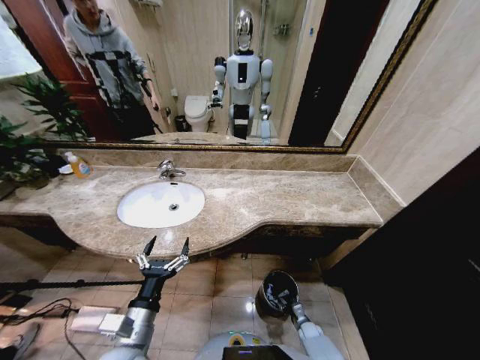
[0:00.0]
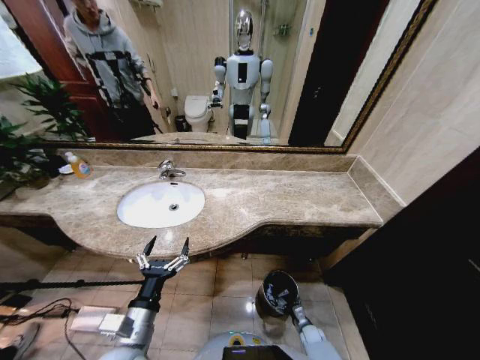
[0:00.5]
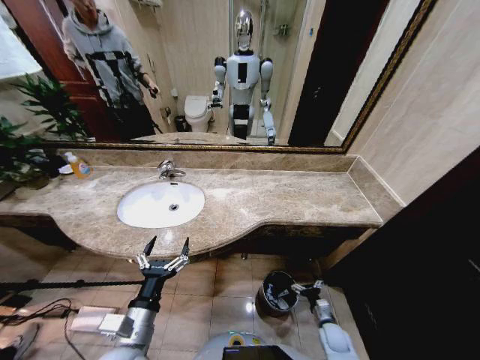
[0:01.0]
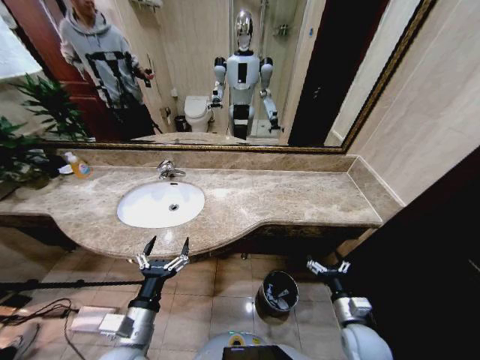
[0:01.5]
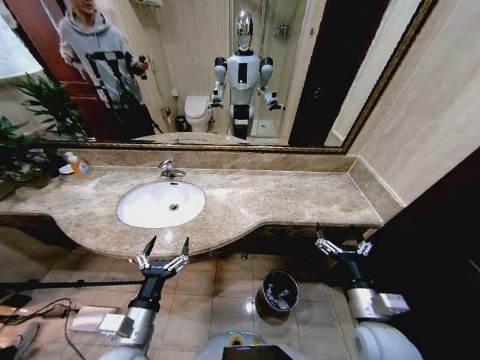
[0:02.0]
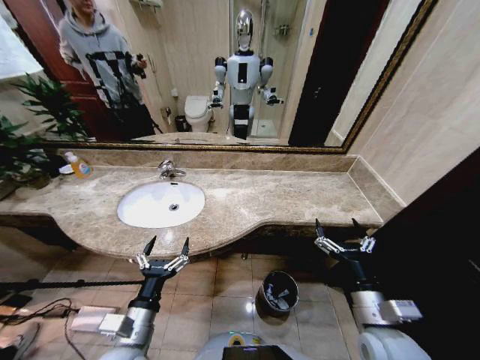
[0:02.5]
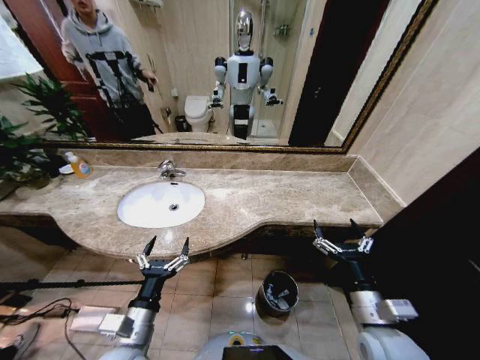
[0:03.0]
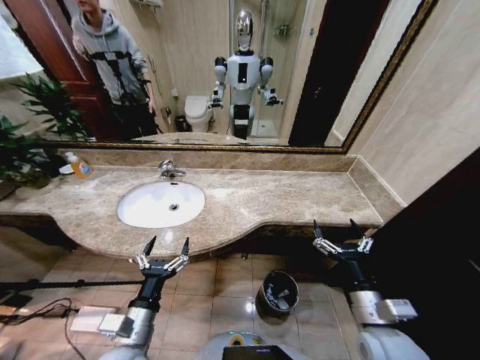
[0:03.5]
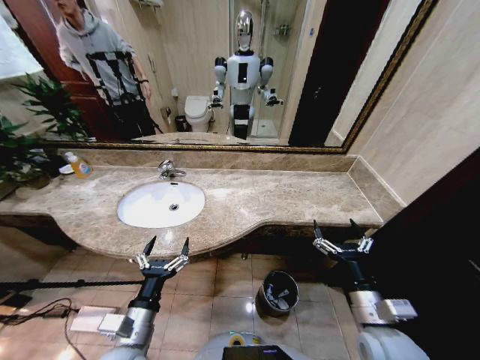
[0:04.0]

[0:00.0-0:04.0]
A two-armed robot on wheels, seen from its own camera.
Task of the whole recording: Pick up the trash from the sink and place it in the trash bin.
0:00.0 to 0:02.0: The right gripper moves upward, about 40 cm, and opens up.
0:02.0 to 0:04.0: There are only small adjustments of the grippers.

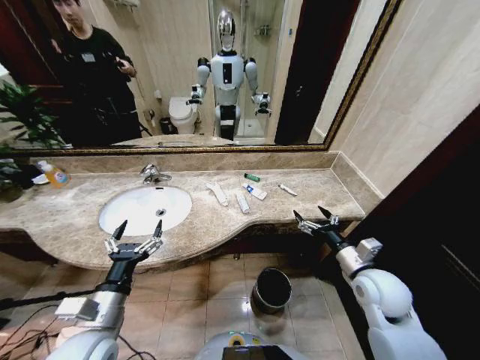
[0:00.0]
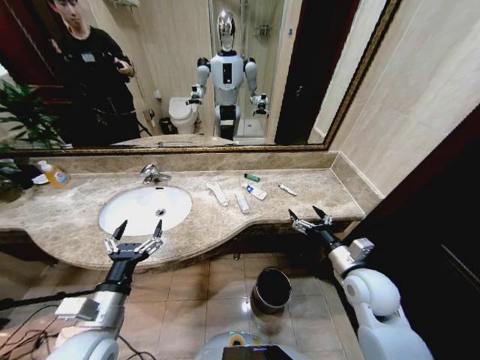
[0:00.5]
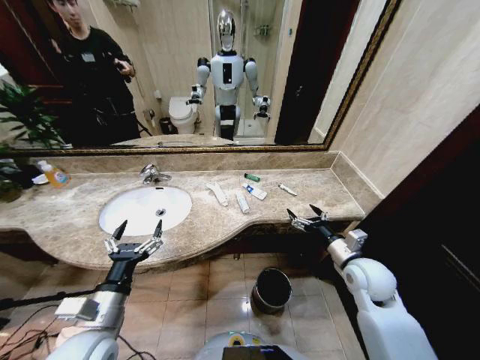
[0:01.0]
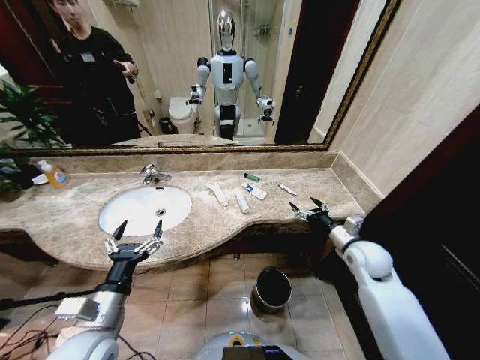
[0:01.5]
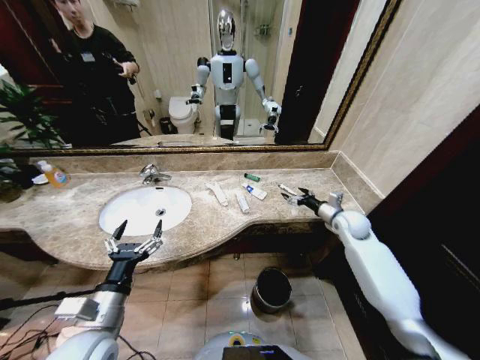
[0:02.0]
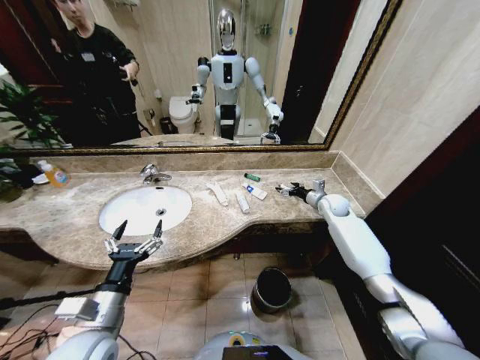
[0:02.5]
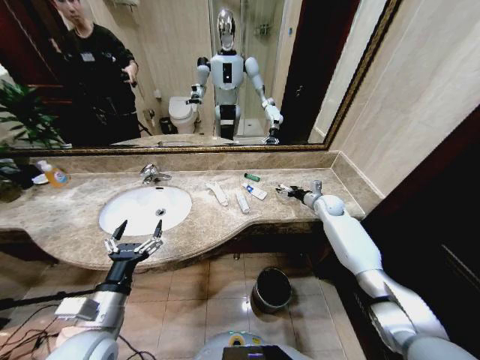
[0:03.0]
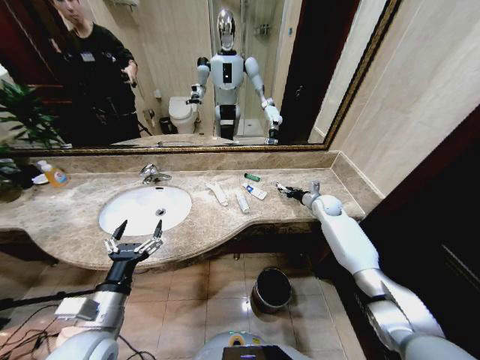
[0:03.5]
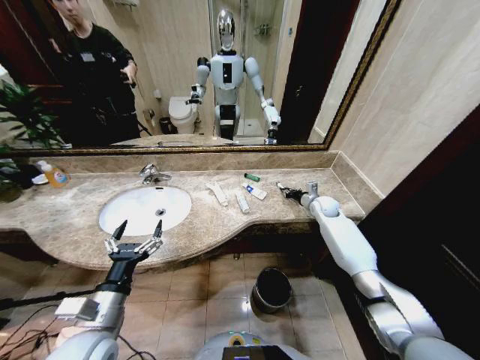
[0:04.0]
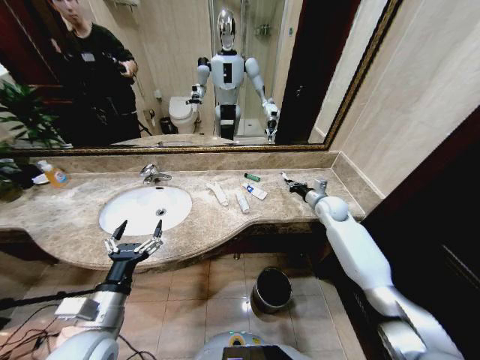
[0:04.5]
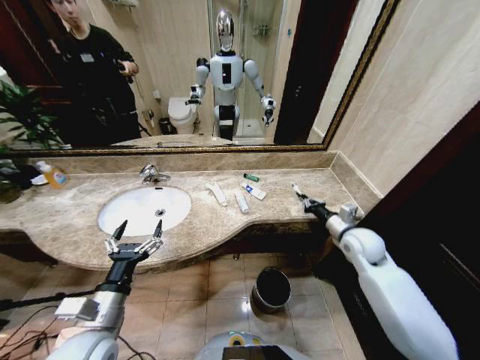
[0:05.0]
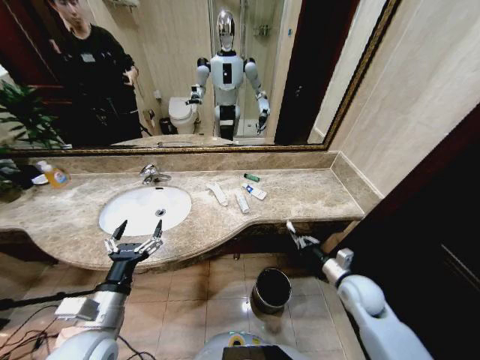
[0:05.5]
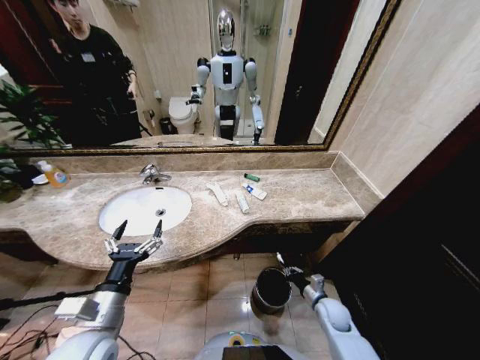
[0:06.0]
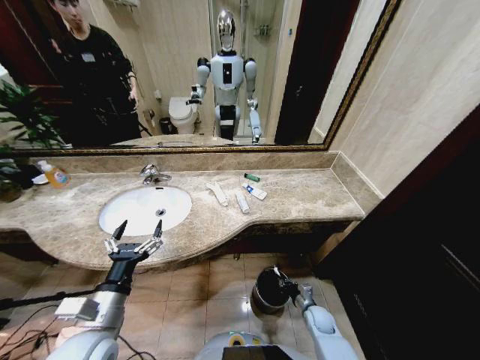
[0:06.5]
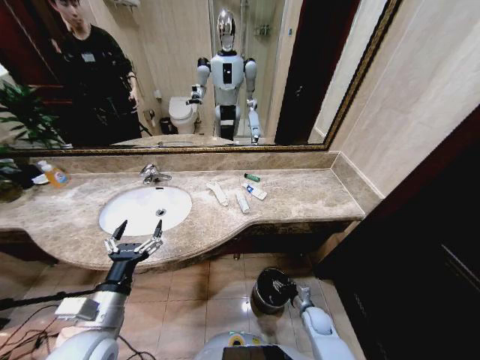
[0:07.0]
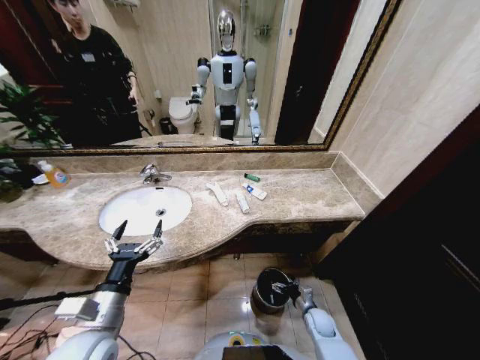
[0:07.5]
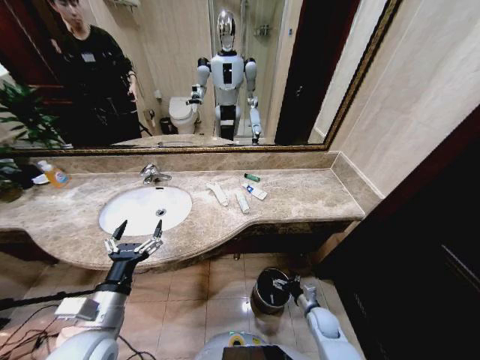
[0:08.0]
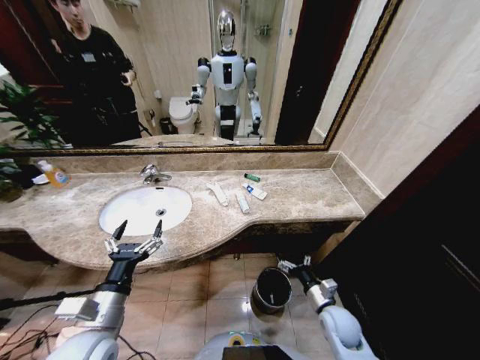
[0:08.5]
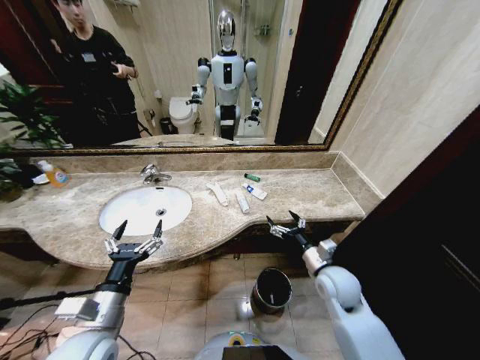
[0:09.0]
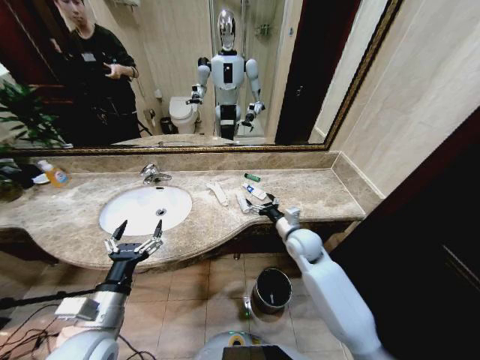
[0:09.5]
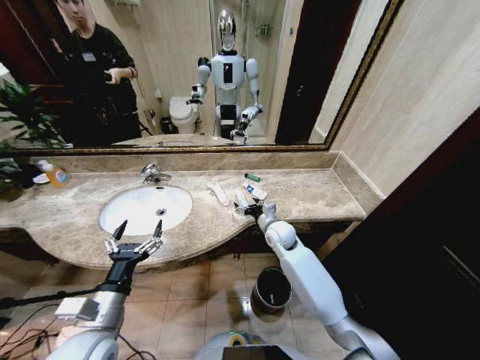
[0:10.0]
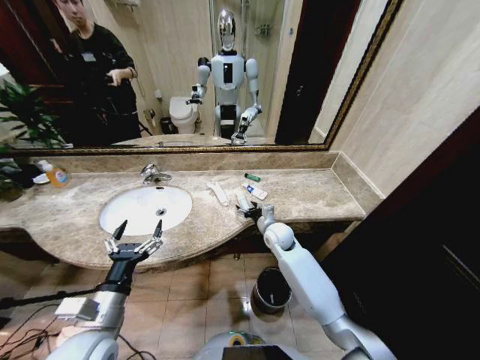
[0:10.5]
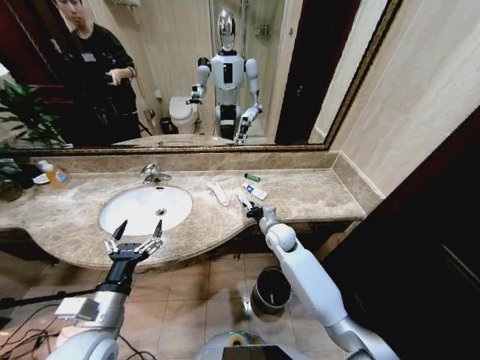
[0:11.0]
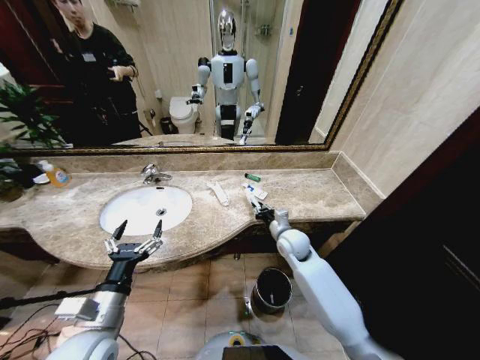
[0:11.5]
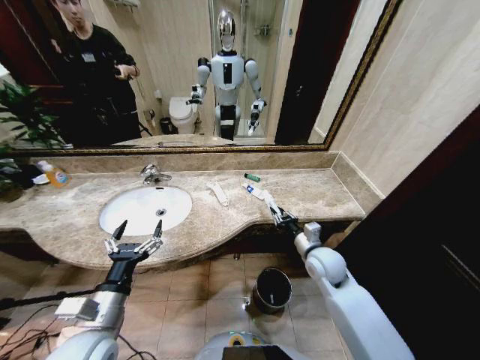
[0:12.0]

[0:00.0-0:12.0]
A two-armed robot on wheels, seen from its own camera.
Task of the whole recording: Pick up the trash from the sink and place it in the trash bin.
0:02.0 to 0:04.0: The right gripper is displaced forward by some 10 cm, and closes up.
0:04.0 to 0:06.0: The right gripper moves backward and downward, some 35 cm.
0:06.0 to 0:08.0: The right gripper opens its fingers.
0:08.0 to 0:10.0: The right gripper travels upward, forward and to the left by roughly 35 cm.
0:10.0 to 0:12.0: The right gripper goes about 15 cm backward and to the right, and closes up.

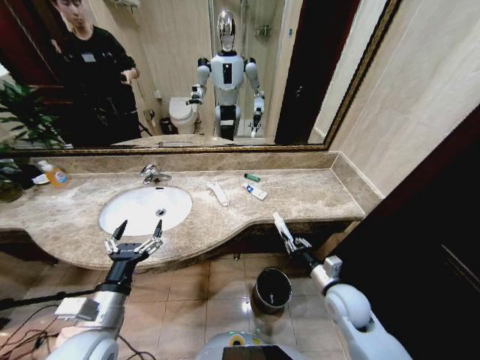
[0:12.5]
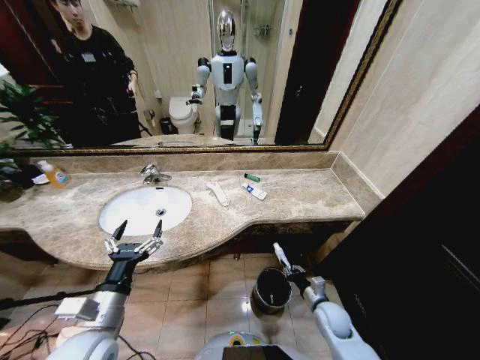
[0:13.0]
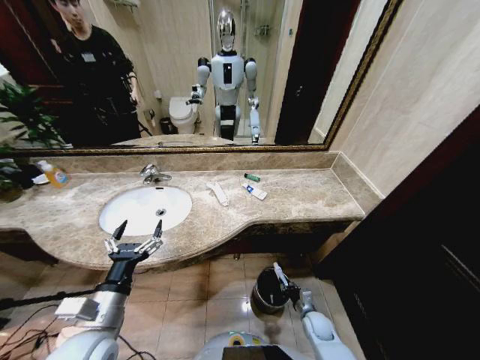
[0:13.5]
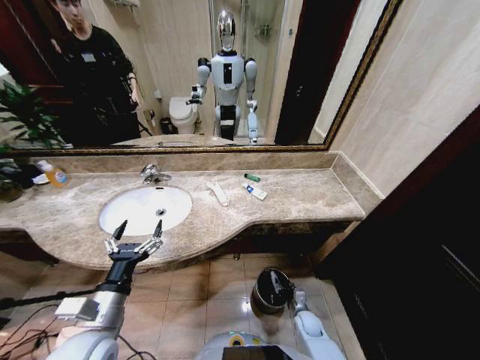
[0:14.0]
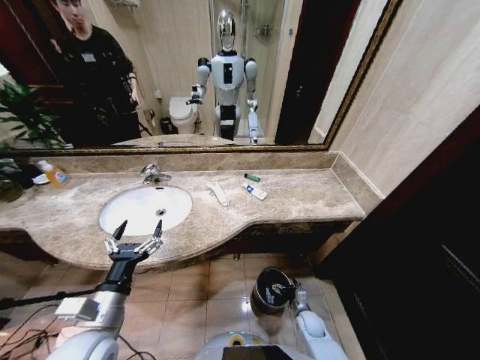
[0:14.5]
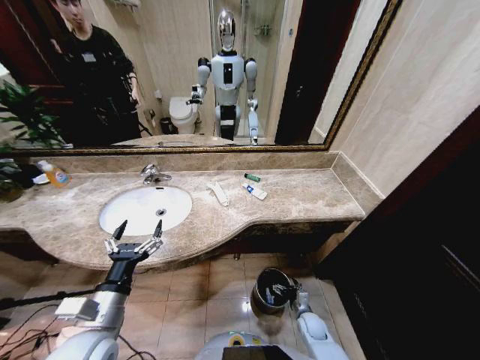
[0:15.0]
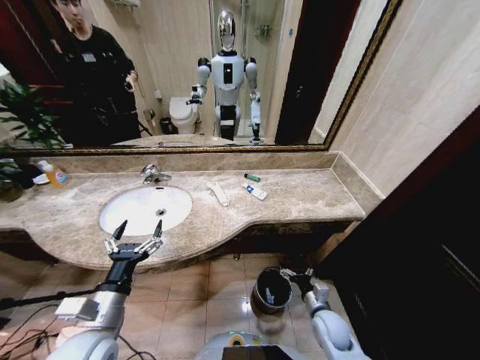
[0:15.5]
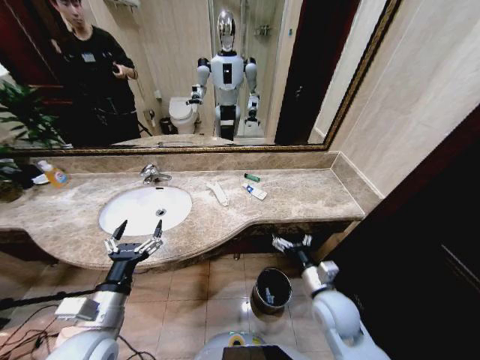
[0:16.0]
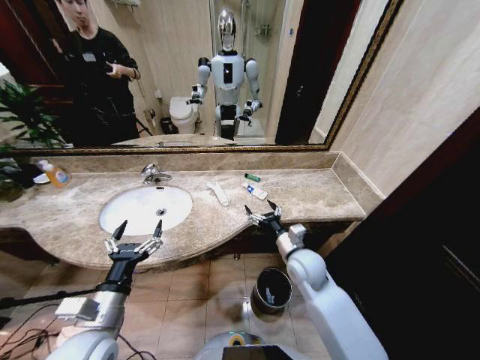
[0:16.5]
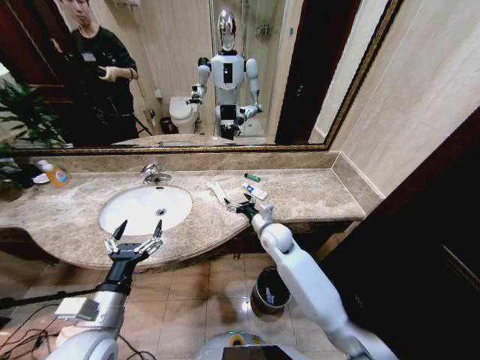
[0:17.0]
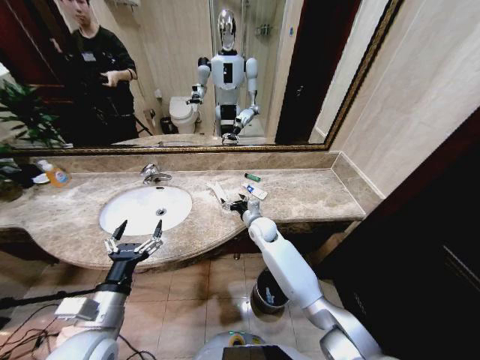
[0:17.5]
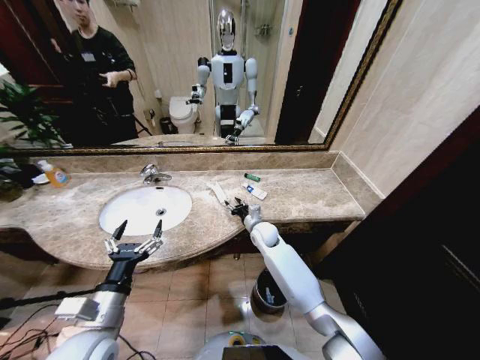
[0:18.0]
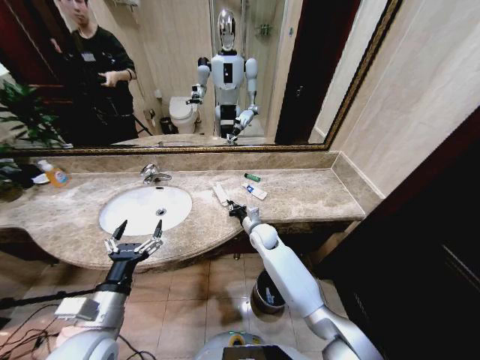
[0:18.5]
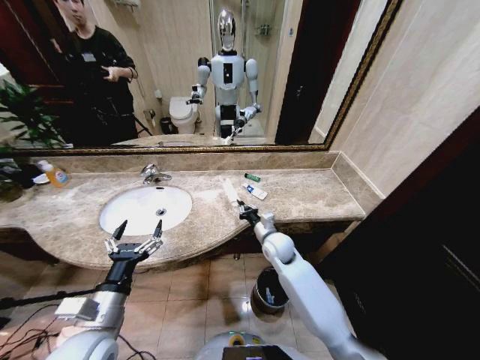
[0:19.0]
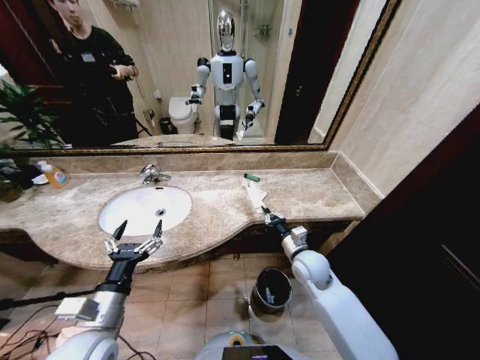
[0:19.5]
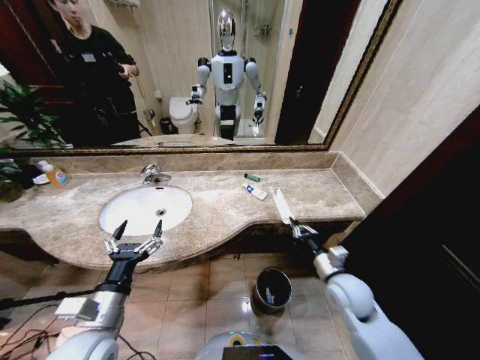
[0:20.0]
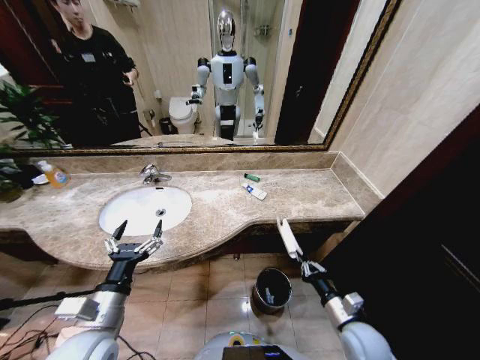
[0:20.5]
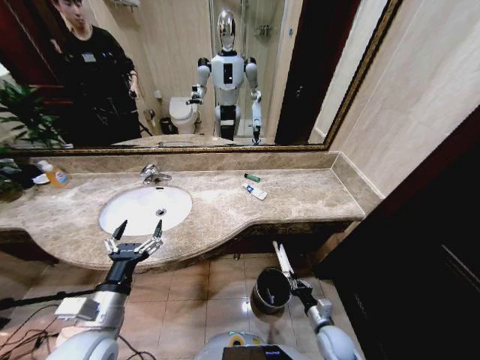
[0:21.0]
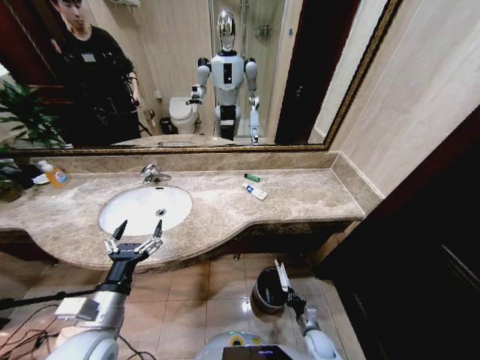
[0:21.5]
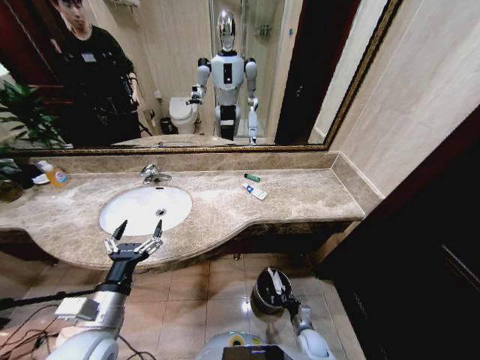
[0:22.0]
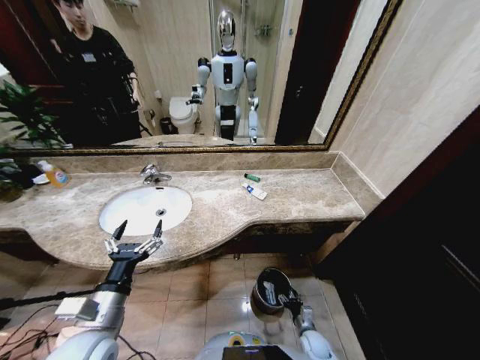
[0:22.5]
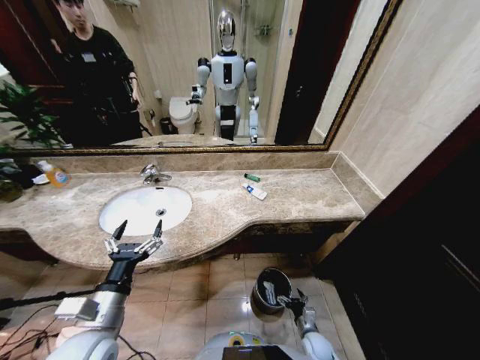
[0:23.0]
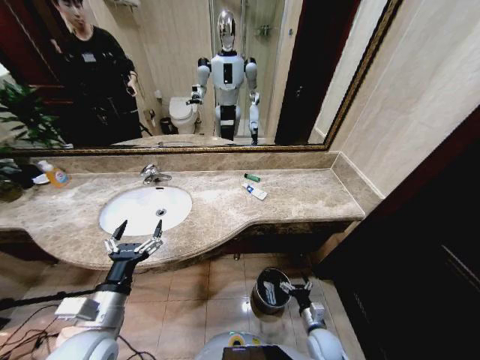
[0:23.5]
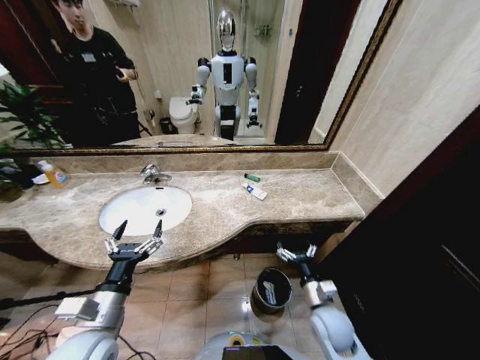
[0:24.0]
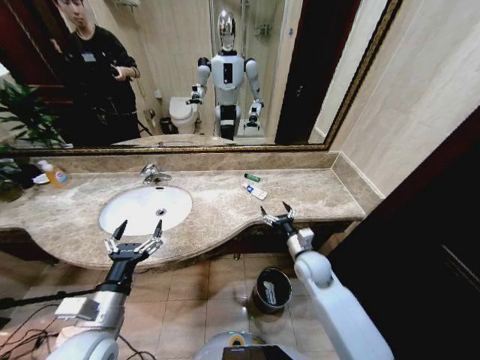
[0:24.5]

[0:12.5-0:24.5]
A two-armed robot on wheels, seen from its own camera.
Task of the whole recording: Pick up the trash from the sink and place it in the trash bin.
0:12.5 to 0:14.5: The right gripper shifts approximately 25 cm downward, and opens up.
0:14.5 to 0:16.5: The right gripper goes some 30 cm upward.
0:16.5 to 0:18.5: The right gripper goes approximately 20 cm forward, to the left and downward, and closes its fingers.
0:18.5 to 0:20.5: The right gripper shifts some 35 cm backward and to the right.
0:20.5 to 0:22.5: The right gripper goes approximately 25 cm downward, and opens.
0:22.5 to 0:24.5: The right gripper goes approximately 35 cm upward and forward, and opens up.
